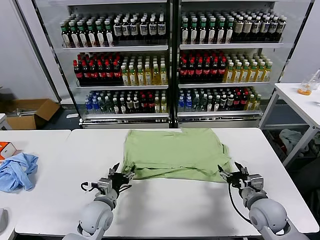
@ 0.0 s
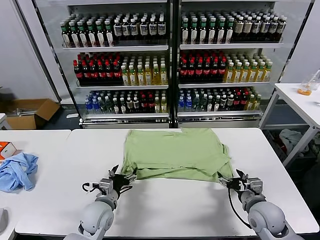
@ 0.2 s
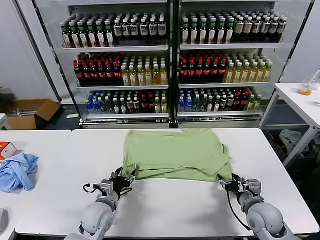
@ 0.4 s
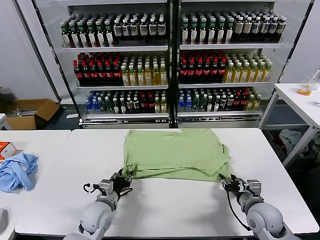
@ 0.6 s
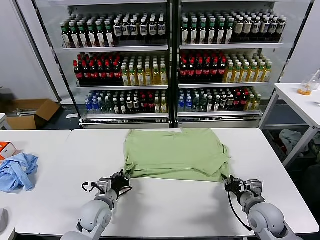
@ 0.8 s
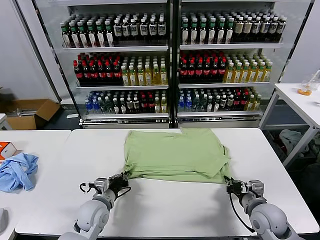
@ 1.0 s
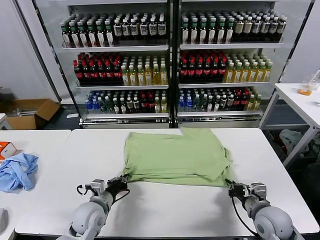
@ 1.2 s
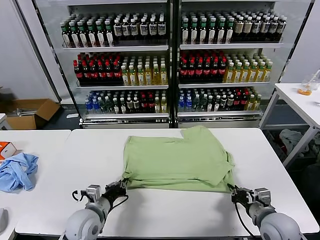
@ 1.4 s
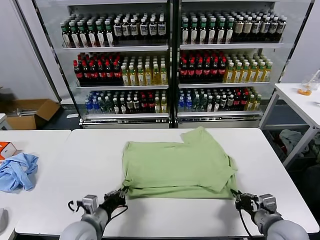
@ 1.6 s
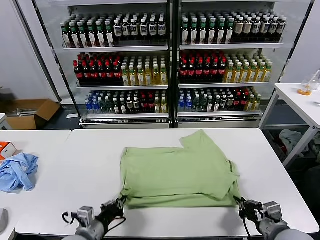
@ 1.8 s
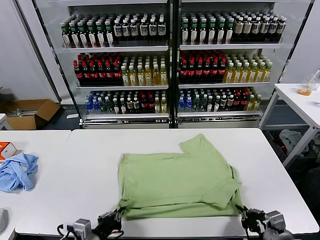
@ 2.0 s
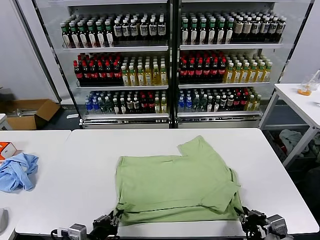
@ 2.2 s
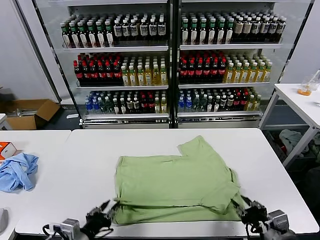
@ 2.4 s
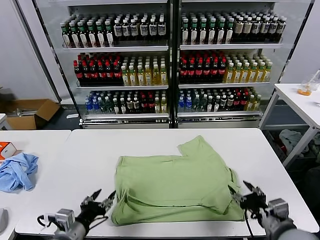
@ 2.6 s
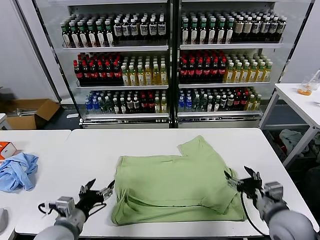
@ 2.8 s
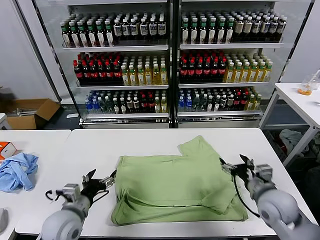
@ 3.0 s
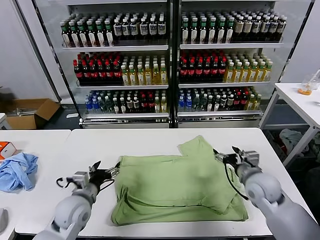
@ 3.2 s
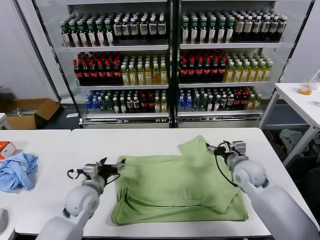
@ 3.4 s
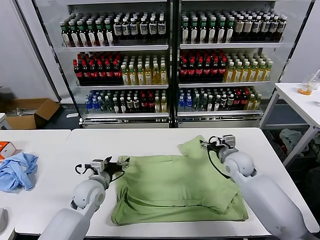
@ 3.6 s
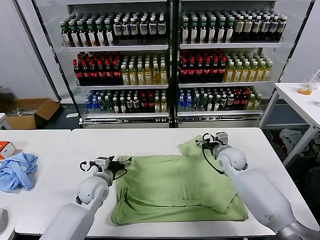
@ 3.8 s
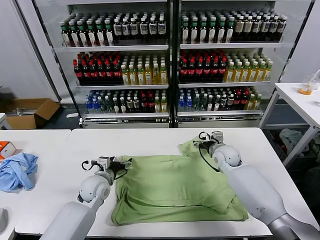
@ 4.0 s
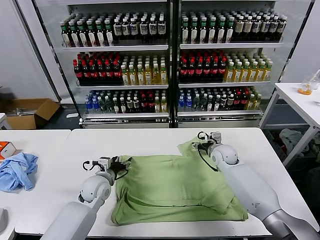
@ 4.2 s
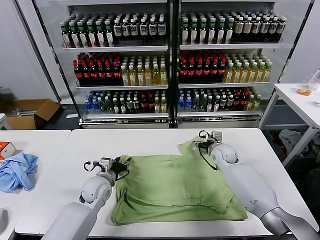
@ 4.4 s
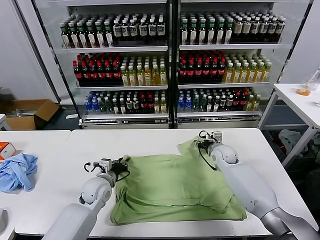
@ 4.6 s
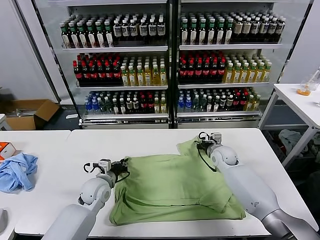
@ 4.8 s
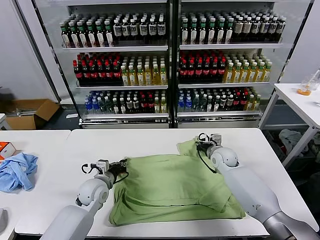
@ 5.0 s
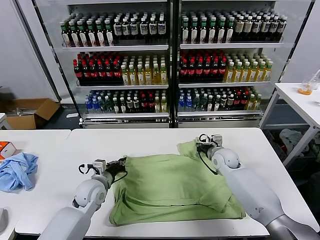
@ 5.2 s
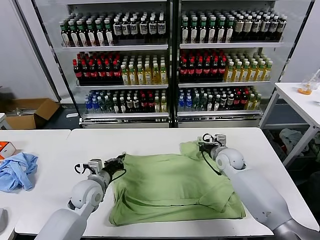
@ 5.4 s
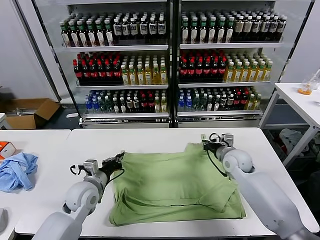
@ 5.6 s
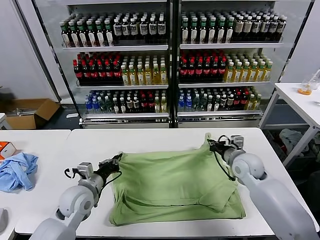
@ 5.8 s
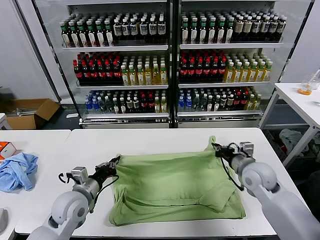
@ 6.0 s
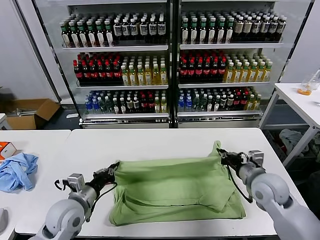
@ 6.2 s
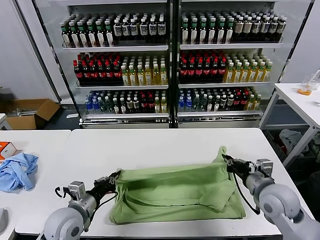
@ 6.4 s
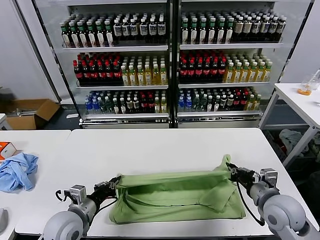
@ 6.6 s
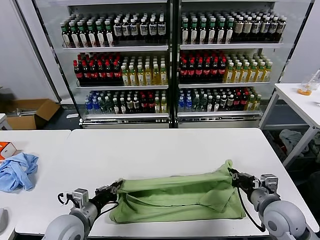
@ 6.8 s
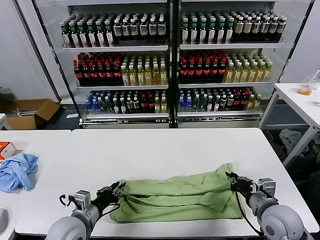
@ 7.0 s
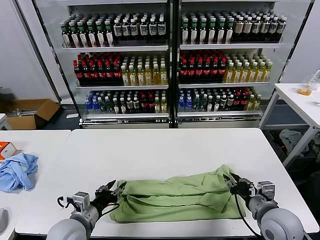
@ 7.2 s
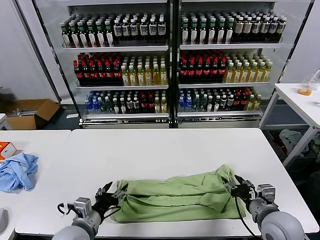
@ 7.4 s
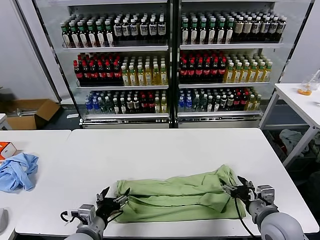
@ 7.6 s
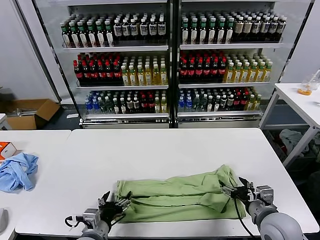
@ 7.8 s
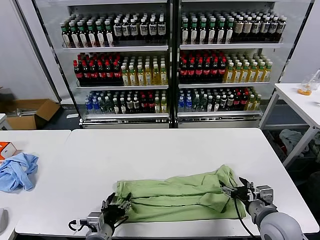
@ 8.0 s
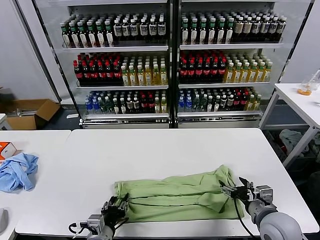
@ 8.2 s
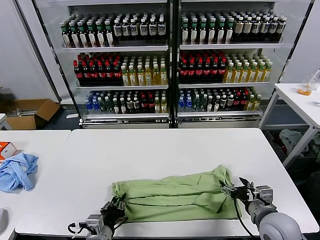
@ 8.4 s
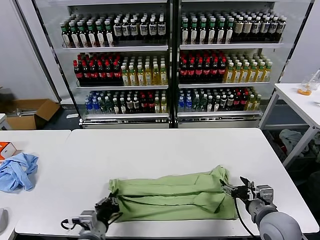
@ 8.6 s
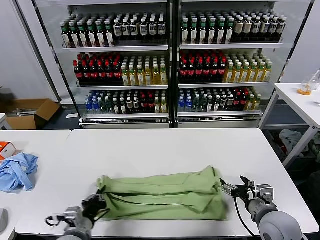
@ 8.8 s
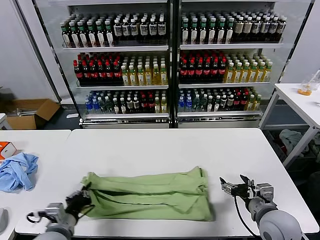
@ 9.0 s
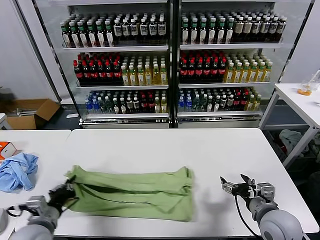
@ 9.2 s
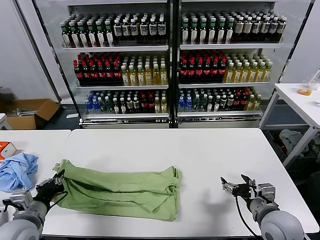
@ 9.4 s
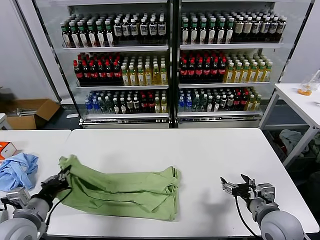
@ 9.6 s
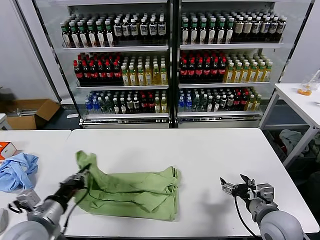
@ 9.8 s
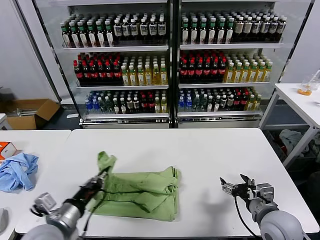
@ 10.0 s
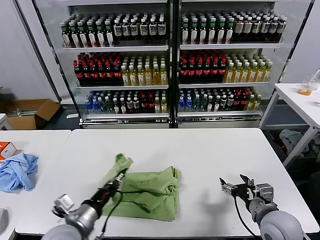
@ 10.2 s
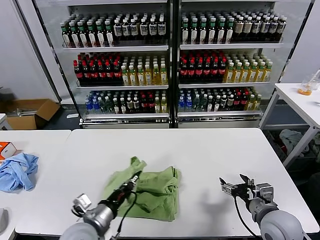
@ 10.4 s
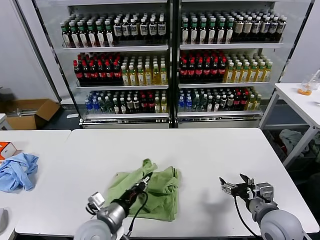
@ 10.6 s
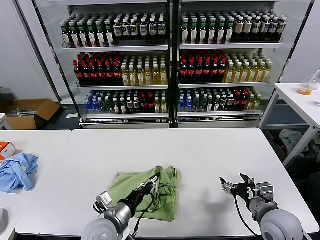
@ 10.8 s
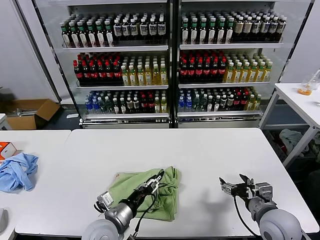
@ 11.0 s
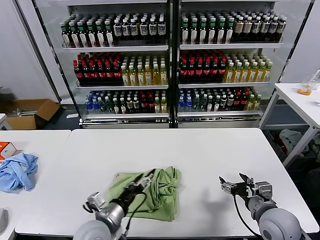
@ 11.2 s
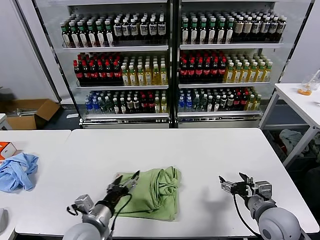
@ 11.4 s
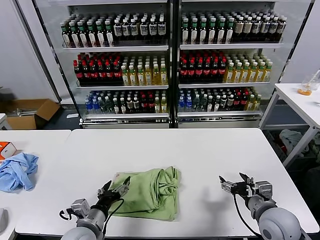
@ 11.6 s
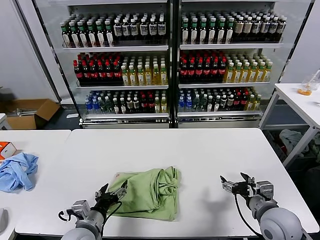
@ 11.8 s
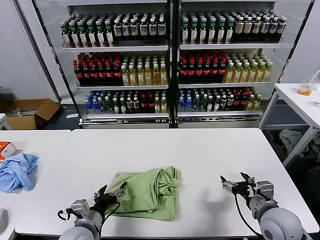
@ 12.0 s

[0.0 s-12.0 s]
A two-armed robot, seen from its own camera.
Task of the whole recording: fold and organize the clothes.
Step, 0.0 to 2.4 s: Drag the clothes downward with both gripper.
Step, 2.6 to 5.0 s: use both grippers simultaneously to clamp the upper edge of the clothing fabric.
Step, 5.2 to 7.4 s: use both grippers to drag the upper edge of the fabric backward and fold it over the lower edge.
Step, 7.6 to 8.6 s: use the left gripper to clamp the left edge of the fabric.
Step, 8.8 to 11.2 s: use the left gripper to drag the left edge of the fabric to the left and folds it over the right edge.
0.0 to 1.6 s: The two grippers go some 10 cm backward. The right gripper closes its fingers. Meanwhile the left gripper closes up.
1.6 to 3.0 s: The right gripper moves forward, about 10 cm, and opens its fingers; the left gripper reaches some 10 cm backward, then returns, and opens up.
3.0 to 4.4 s: The two grippers go about 20 cm forward. The left gripper closes its fingers.
4.4 to 6.0 s: The right gripper goes approximately 20 cm backward and upward, and closes its fingers. The left gripper moves backward and upward, approximately 10 cm, and closes up.
6.0 to 7.6 s: The two grippers go some 10 cm backward. The left gripper opens its fingers; the right gripper opens.
7.6 to 9.0 s: The left gripper moves to the left, approximately 5 cm, and closes up.
9.0 to 10.4 s: The left gripper goes approximately 5 cm to the right.
10.4 to 12.0 s: The left gripper travels downward by roughly 5 cm, and opens its fingers.

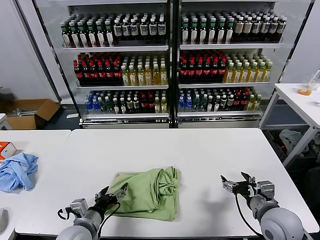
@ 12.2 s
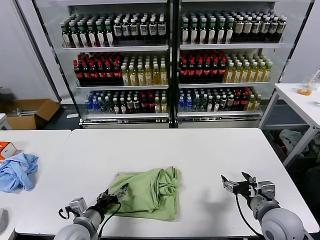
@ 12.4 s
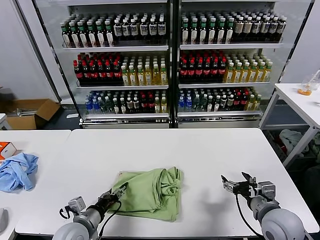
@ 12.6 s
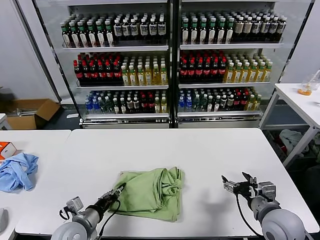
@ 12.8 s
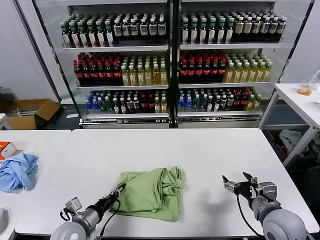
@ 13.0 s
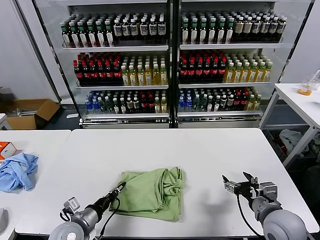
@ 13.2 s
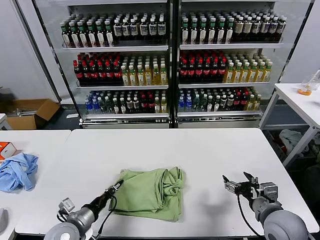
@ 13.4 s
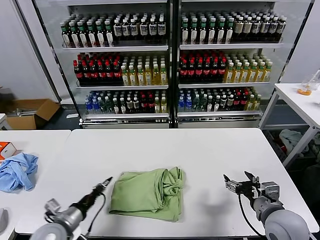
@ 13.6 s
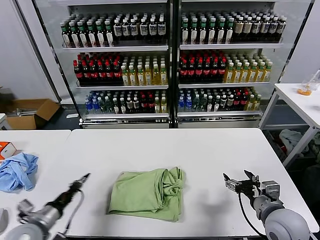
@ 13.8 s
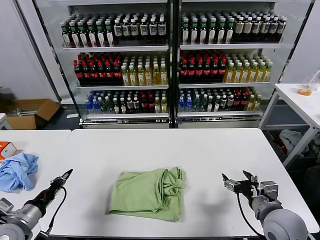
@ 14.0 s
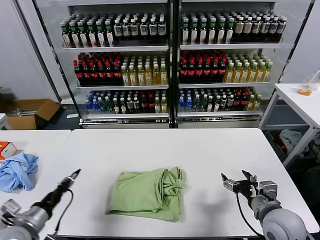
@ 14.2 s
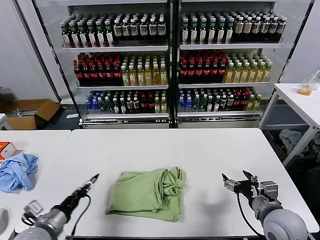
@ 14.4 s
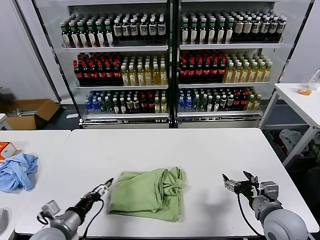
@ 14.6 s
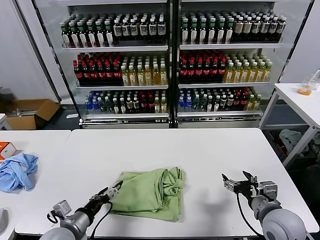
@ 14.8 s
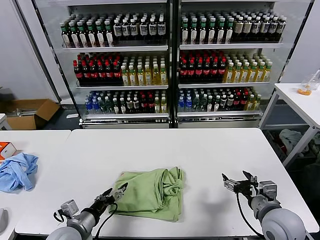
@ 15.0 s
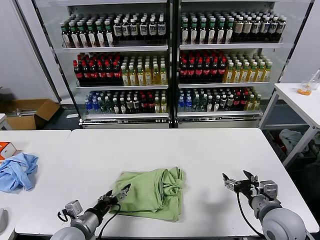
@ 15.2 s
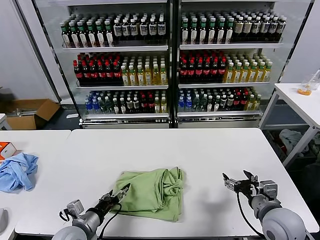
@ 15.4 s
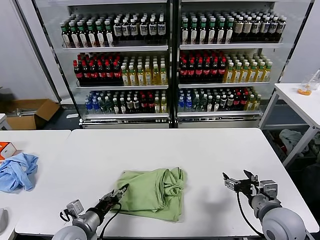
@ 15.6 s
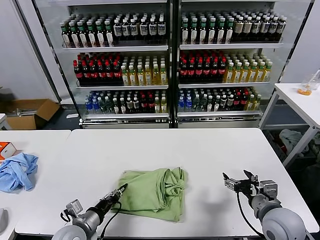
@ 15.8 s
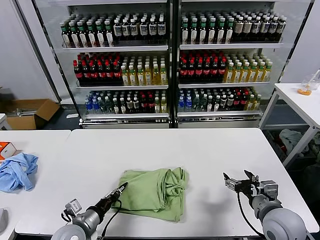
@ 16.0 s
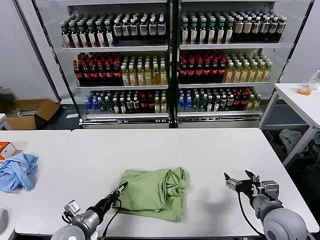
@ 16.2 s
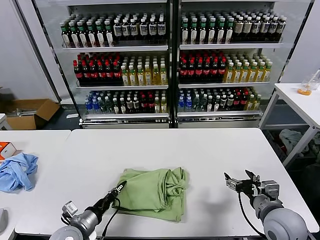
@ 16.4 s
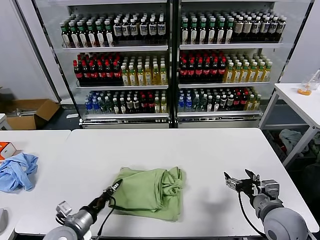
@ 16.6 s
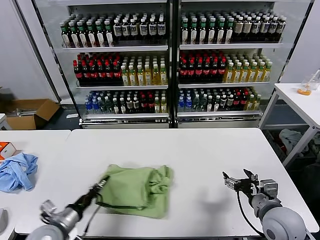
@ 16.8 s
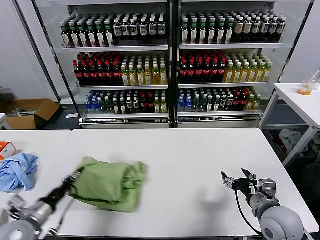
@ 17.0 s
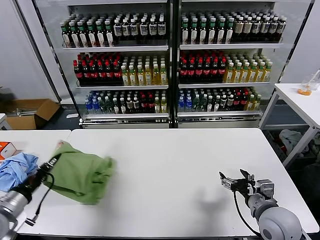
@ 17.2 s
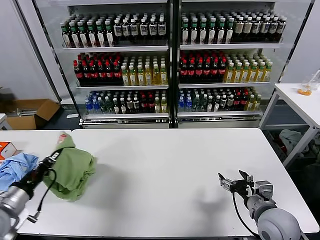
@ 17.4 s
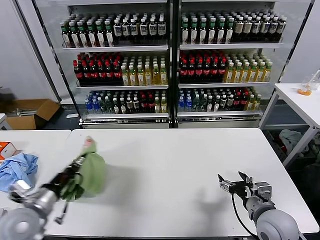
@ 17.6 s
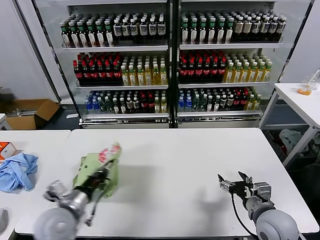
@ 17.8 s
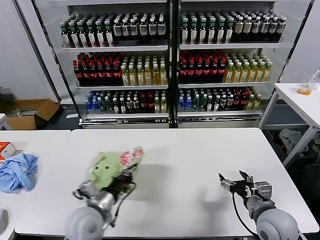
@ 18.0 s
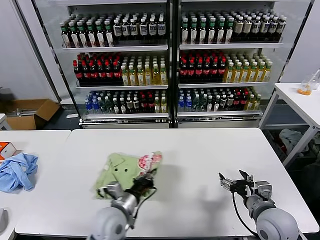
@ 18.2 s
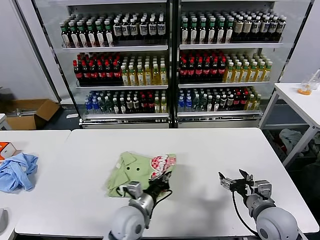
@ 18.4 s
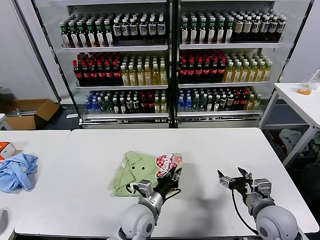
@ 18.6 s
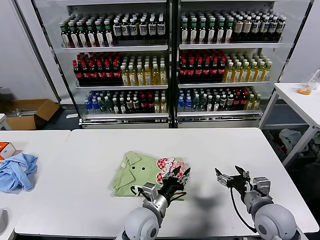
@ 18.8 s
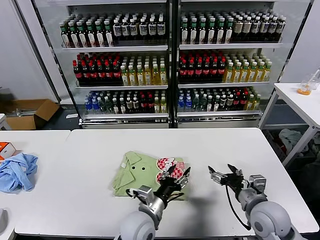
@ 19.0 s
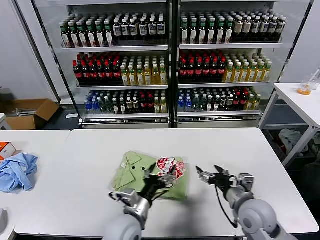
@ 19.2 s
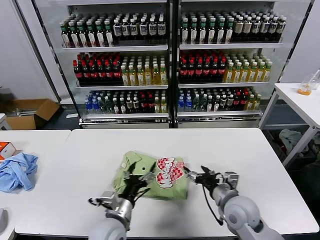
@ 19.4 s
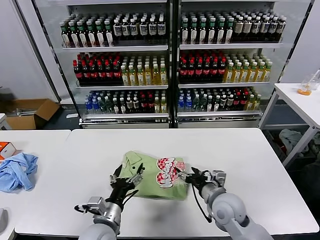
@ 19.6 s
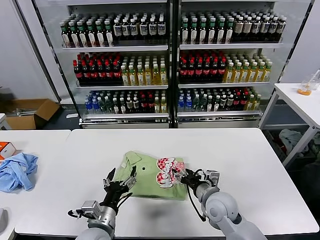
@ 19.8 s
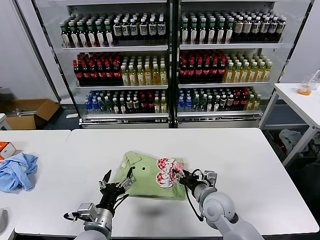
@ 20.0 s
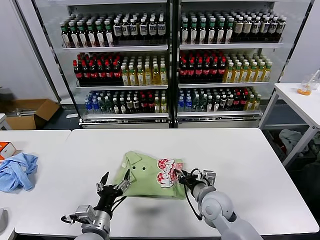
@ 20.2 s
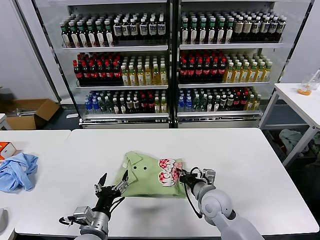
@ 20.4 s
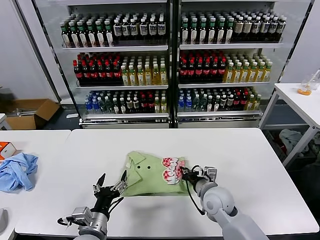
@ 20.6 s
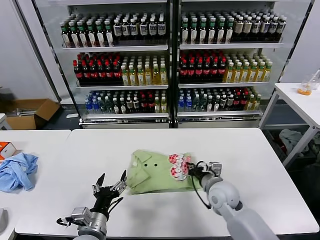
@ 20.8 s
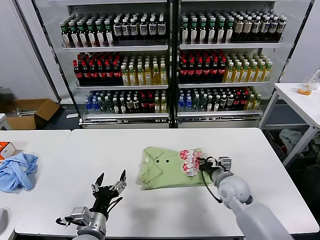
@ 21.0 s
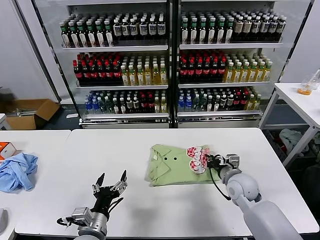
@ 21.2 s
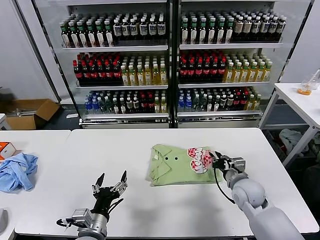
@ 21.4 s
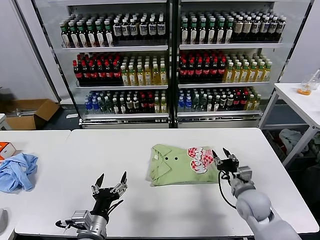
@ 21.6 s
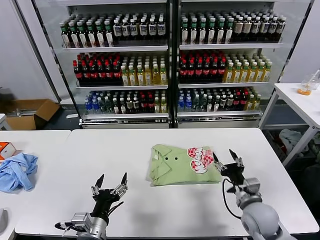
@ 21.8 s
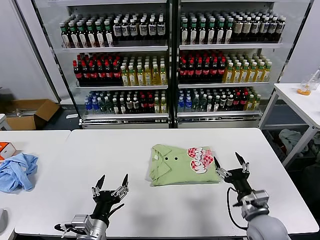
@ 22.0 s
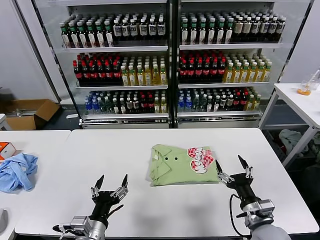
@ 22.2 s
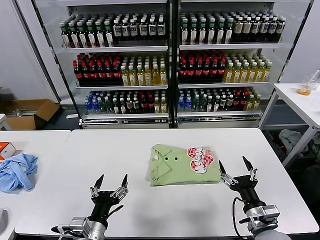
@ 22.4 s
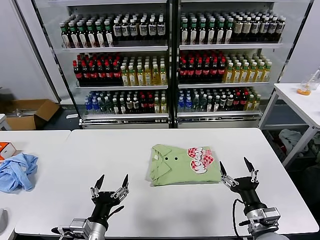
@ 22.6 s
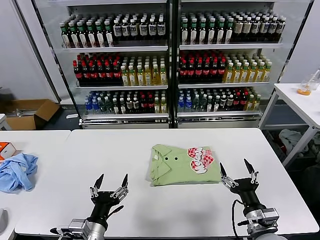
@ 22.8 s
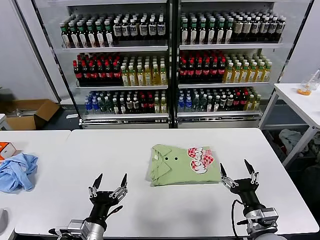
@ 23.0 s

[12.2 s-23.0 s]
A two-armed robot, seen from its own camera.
Task of the whole recording: fold and organize the clothes.
Step, 12.2 to 18.8 s: Flip the folded clothes over with left gripper.
Step, 19.0 to 21.4 s: Drag the clothes to the center of the table.
12.2 to 13.8 s: The left gripper goes approximately 10 cm to the left, and closes its fingers.
13.8 to 15.2 s: The left gripper goes approximately 10 cm to the right, and opens.
15.2 to 16.8 s: The left gripper closes its fingers.
16.8 to 18.4 s: The left gripper shifts some 20 cm to the right.
18.4 to 20.0 s: The right gripper travels to the left and forward by some 15 cm. Meanwhile the left gripper goes approximately 10 cm to the left and backward, and opens its fingers.
20.0 to 21.4 s: The right gripper travels to the right by about 10 cm, and closes up.
21.4 to 23.0 s: The right gripper shifts approximately 20 cm backward, and opens.
